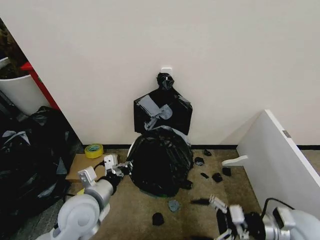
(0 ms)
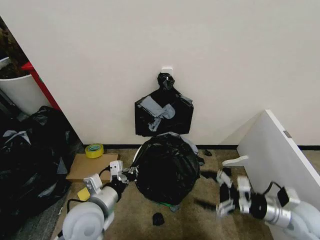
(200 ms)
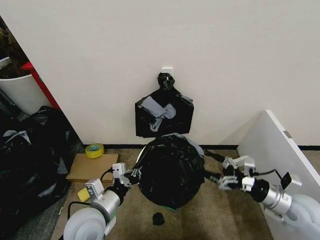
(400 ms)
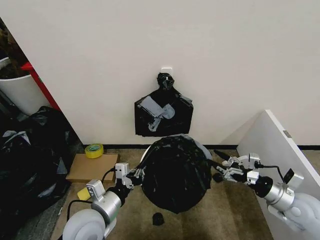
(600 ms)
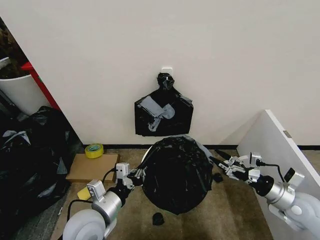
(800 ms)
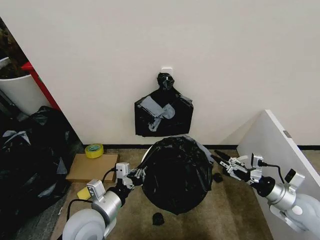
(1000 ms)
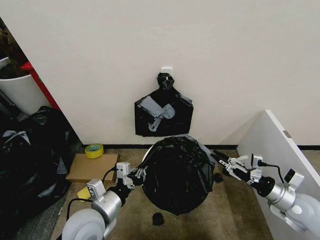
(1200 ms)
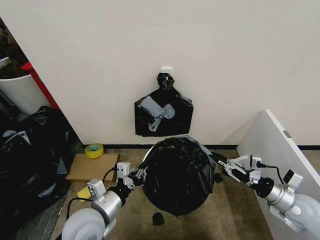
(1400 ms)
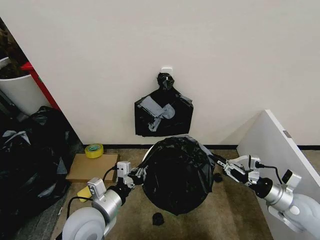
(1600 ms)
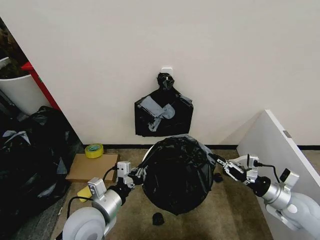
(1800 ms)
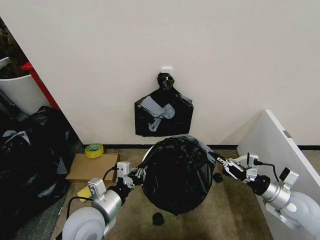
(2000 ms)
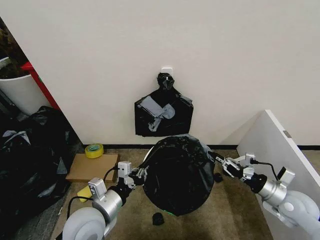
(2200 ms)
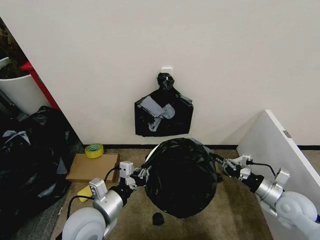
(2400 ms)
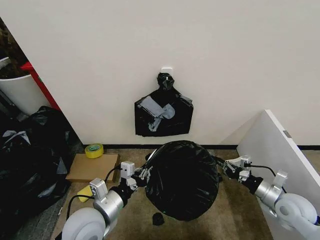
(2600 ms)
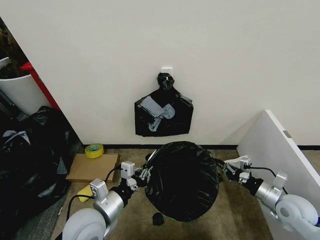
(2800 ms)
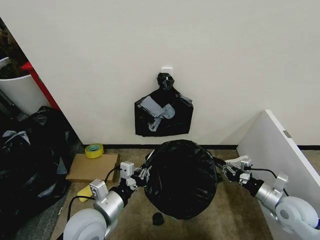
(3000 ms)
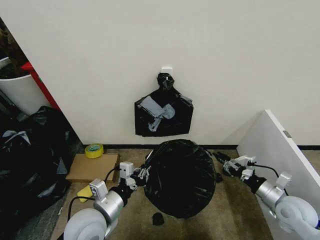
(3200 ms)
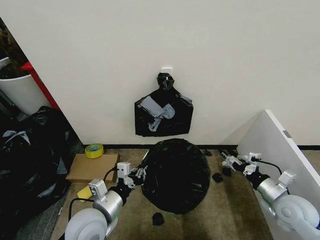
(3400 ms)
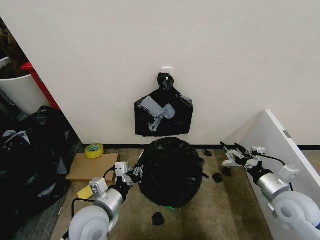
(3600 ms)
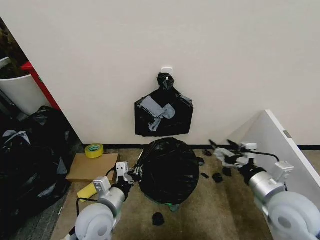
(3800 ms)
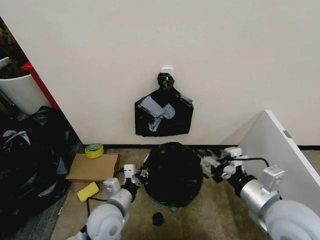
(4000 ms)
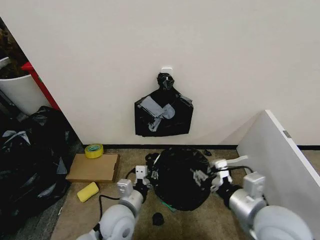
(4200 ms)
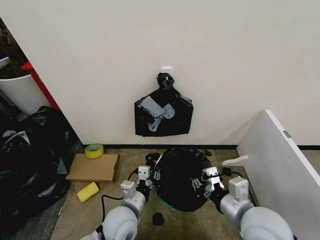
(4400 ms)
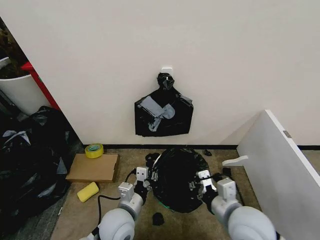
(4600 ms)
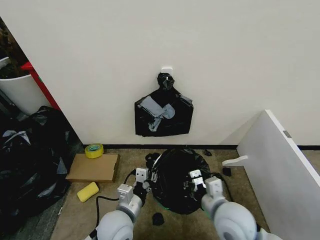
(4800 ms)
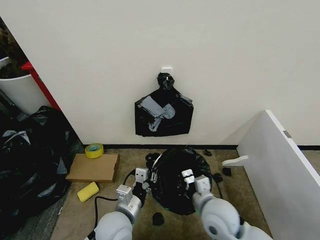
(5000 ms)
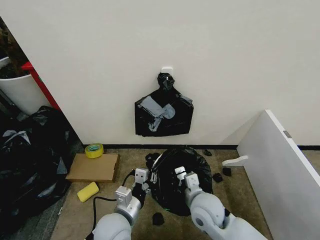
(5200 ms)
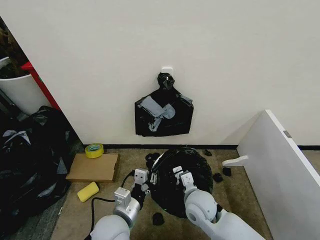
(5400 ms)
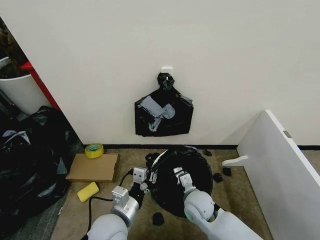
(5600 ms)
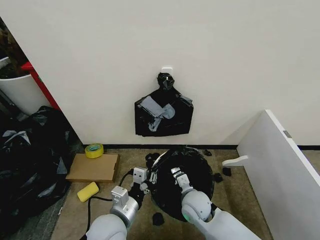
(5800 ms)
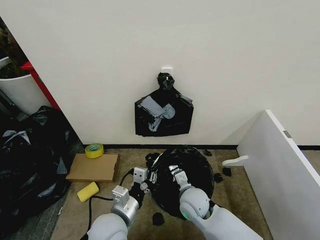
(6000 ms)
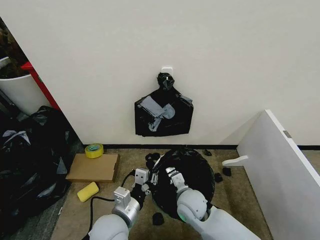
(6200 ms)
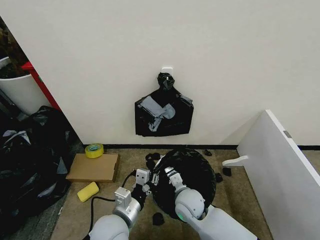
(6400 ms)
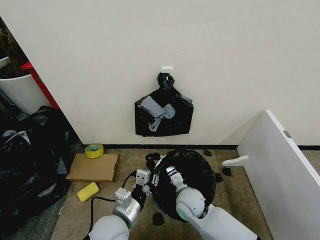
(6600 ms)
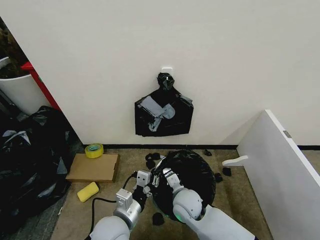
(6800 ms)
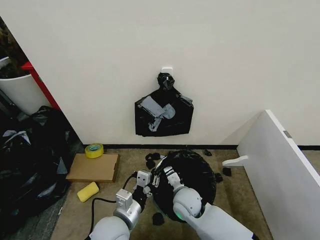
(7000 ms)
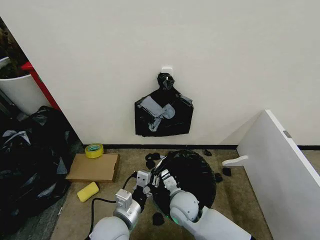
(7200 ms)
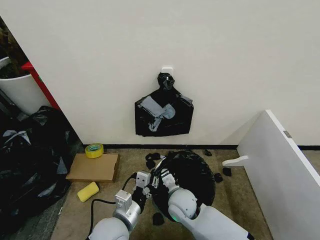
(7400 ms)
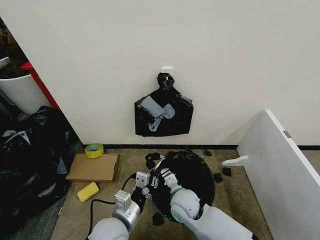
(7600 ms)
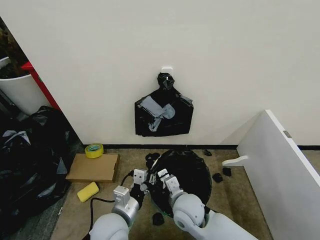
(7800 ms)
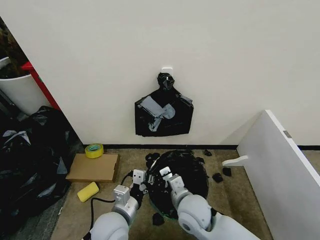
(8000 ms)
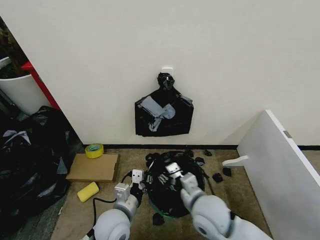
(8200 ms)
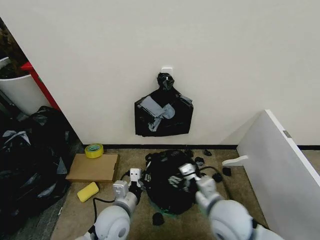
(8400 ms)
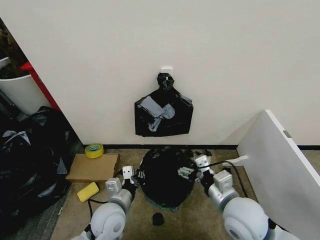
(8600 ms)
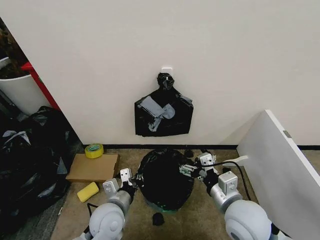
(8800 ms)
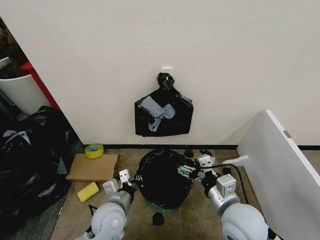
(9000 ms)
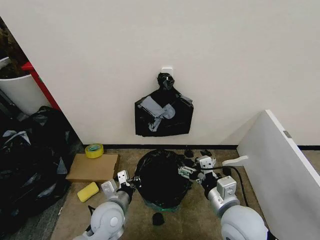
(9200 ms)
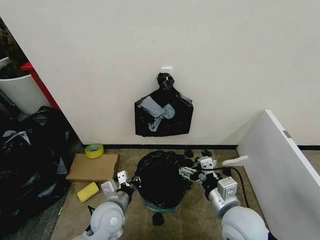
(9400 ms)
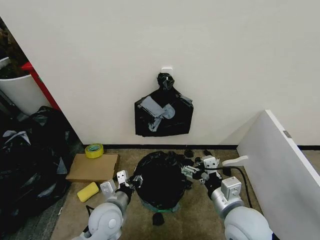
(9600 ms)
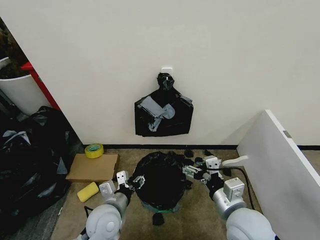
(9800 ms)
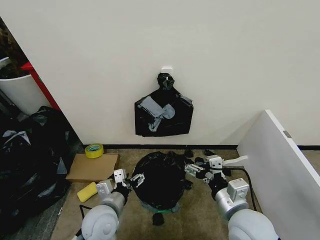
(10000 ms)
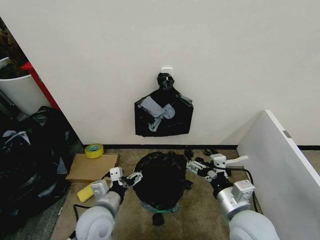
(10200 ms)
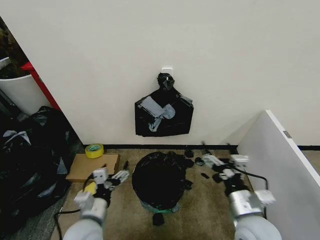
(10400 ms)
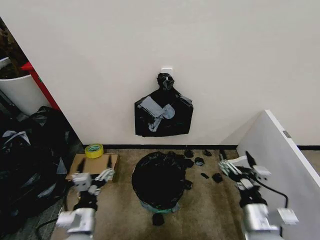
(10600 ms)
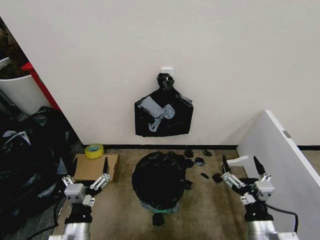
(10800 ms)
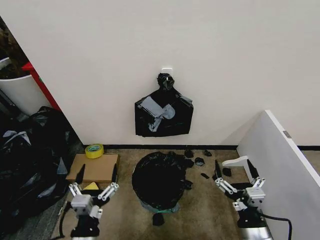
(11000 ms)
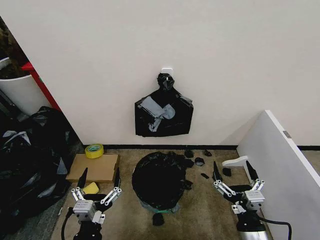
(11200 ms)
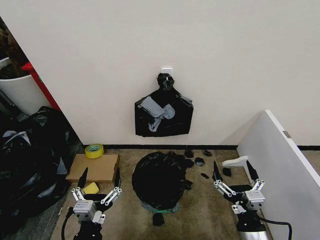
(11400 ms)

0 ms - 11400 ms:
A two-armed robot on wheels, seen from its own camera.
Task of the whole recording: Place the garbage bag over the trash bin.
0 ms - 1400 ms: The right gripper changes place by roughly 5 cm, and closes.
1400 ms - 2800 ms: The right gripper closes its fingers.
2800 ms - 4200 ms: The right gripper moves to the left, upward and backward, roughly 25 cm, and opens up; the left gripper travels downward and to the right by about 10 cm.
4200 ms - 5600 ms: The right gripper travels downward, to the left and forward by about 25 cm, and closes up.
5600 ms - 7200 ms: The right gripper moves to the left, about 5 cm.
7200 ms - 8600 ms: The left gripper moves roughly 5 cm. Meanwhile the right gripper is displaced to the right, upward and backward by approximately 20 cm, and opens.
8600 ms - 10000 ms: The left gripper opens its fingers.
10000 ms - 11400 ms: The left gripper goes about 15 cm backward. Meanwhile the right gripper moves backward and downward, roughly 10 cm.

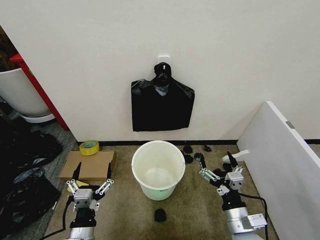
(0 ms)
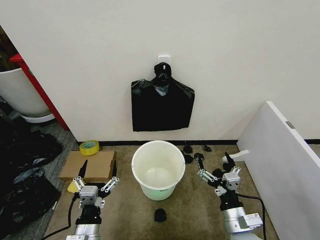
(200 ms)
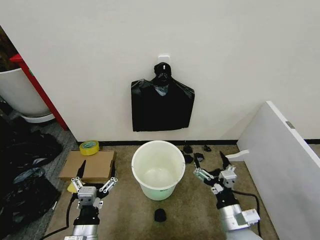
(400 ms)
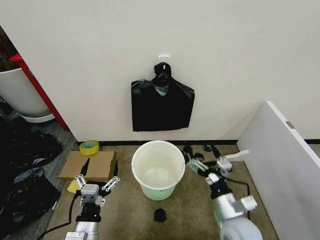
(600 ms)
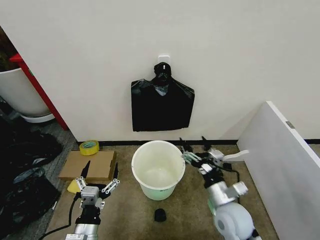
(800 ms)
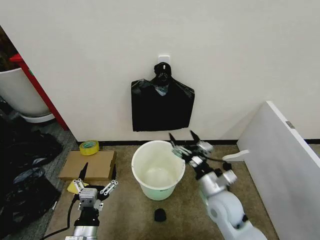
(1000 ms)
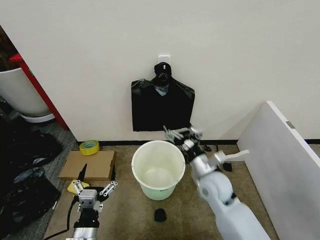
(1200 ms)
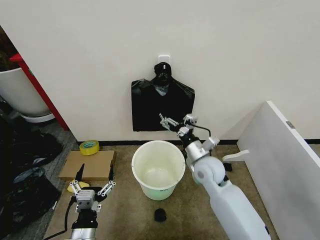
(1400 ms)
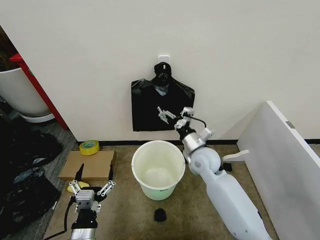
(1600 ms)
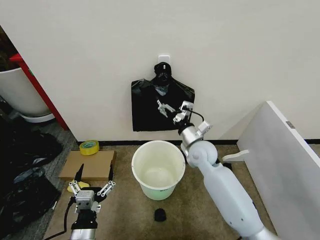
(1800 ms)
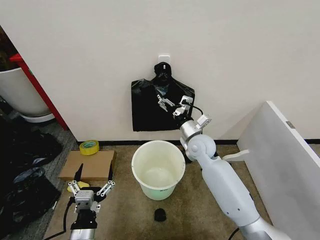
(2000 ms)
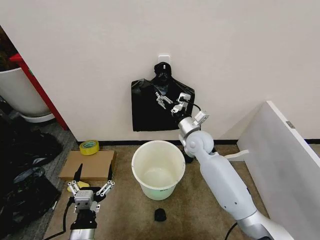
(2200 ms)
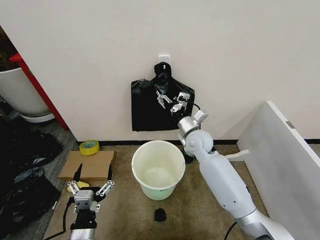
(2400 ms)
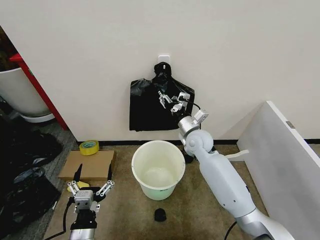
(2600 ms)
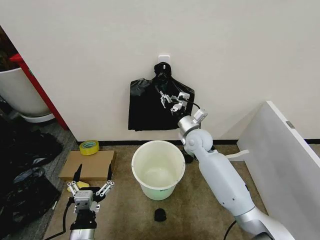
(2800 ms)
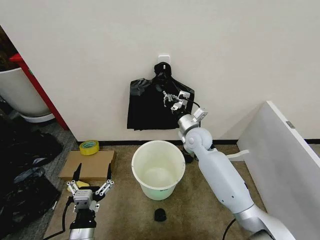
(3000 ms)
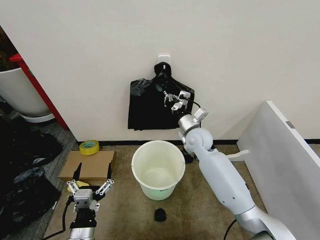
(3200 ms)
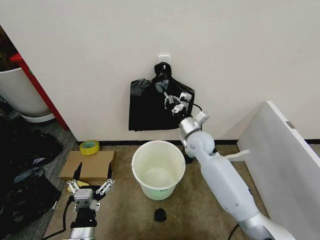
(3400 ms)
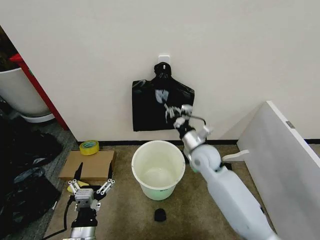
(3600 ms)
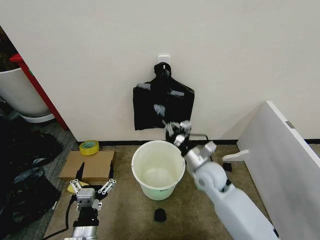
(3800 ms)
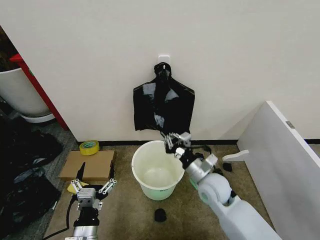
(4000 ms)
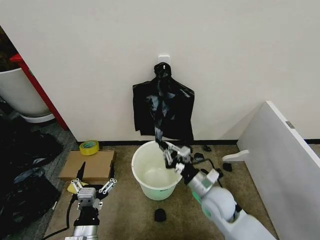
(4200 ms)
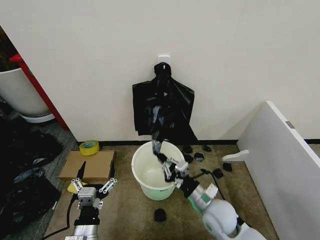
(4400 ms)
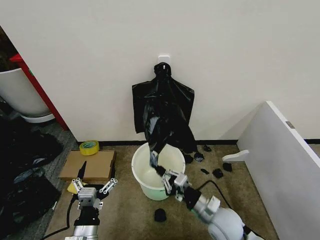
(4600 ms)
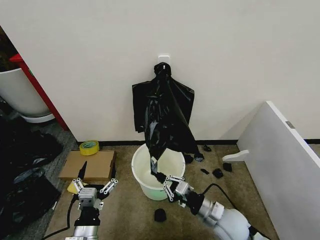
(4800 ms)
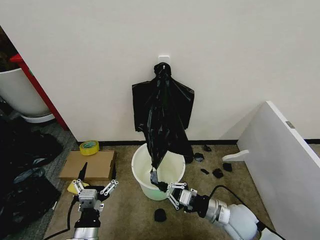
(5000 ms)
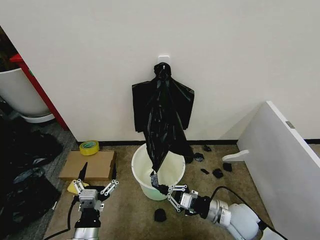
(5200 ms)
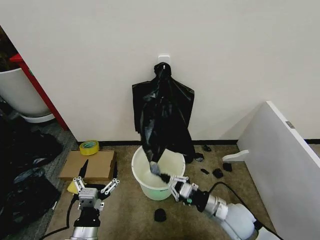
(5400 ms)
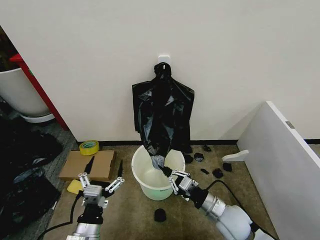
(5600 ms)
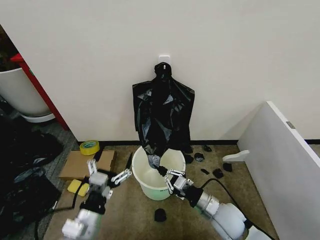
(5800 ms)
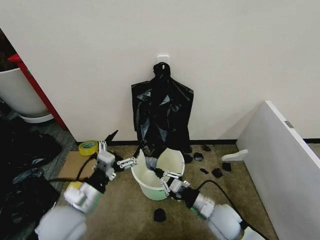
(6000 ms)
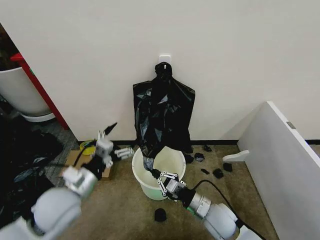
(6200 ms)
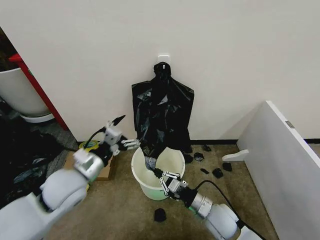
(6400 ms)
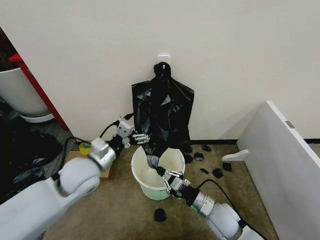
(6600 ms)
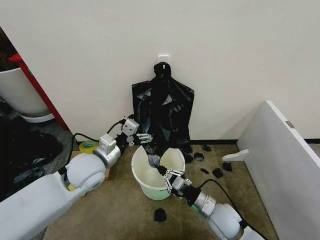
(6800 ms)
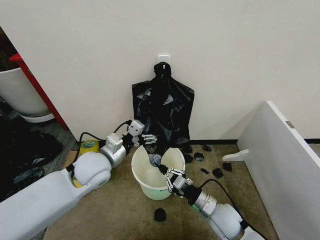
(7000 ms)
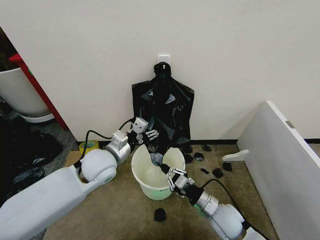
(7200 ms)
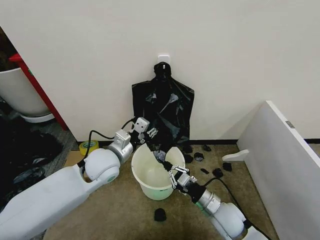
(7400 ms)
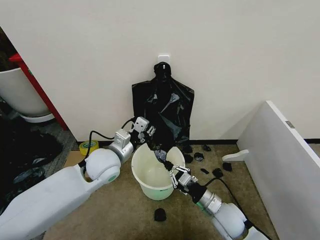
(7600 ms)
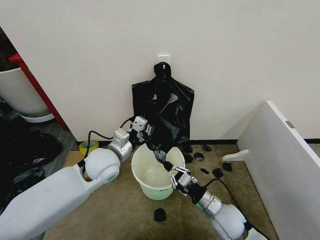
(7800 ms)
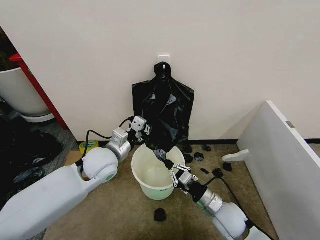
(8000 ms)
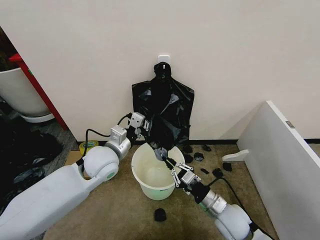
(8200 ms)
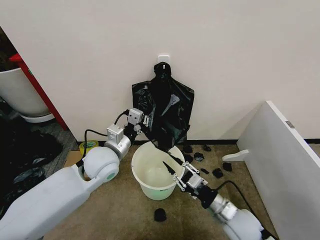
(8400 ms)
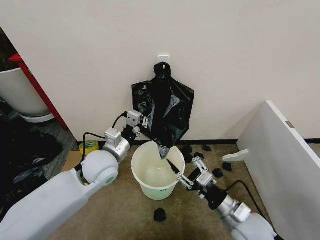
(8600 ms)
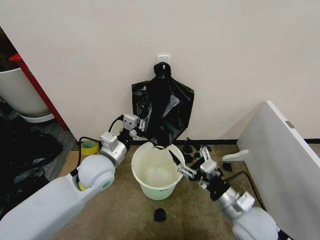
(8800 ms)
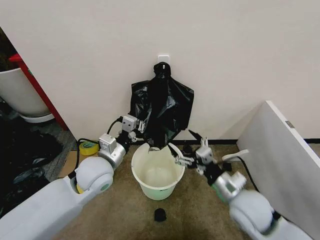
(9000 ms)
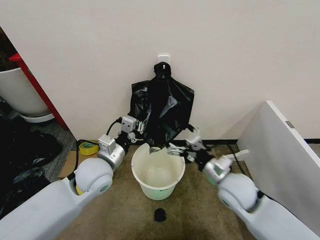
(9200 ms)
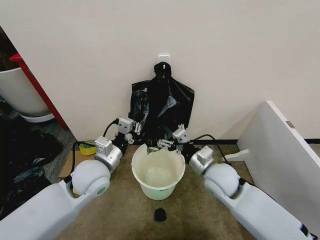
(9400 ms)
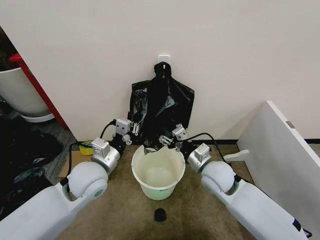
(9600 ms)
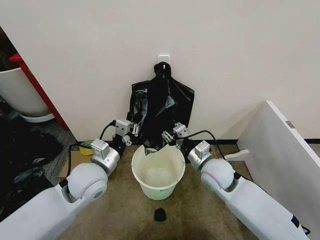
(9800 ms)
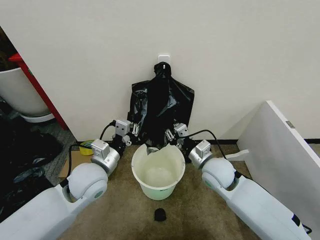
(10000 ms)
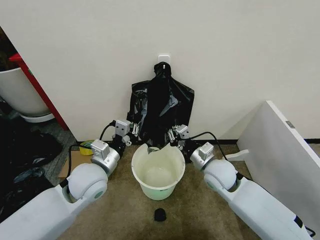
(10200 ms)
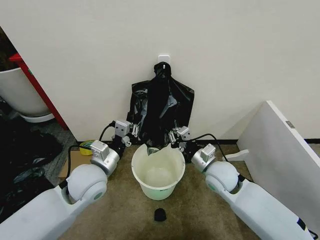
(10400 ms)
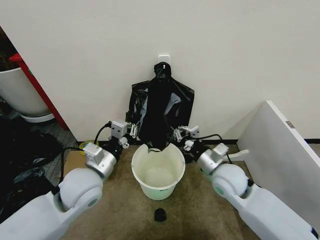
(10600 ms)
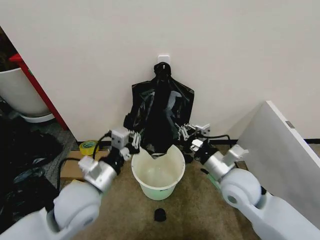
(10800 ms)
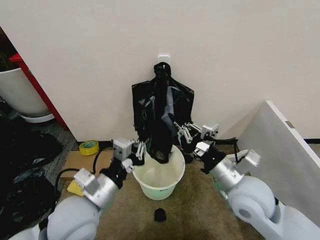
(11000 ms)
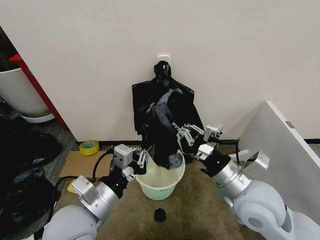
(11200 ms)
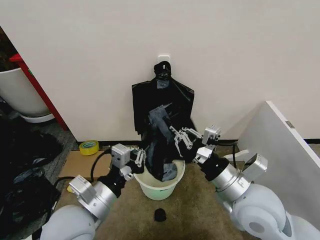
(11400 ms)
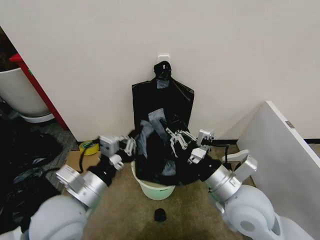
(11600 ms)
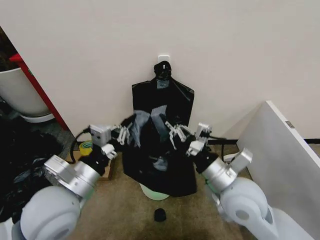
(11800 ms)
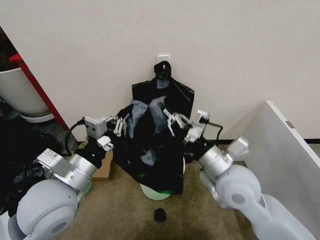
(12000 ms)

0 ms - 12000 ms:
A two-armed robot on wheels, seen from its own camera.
Task of the whole recording: Place the garbage bag over the trash bin.
1600 ms - 3000 ms: The right gripper heads forward, covering approximately 10 cm, and closes.
3000 ms - 4400 ms: The right gripper is displaced backward and downward by roughly 25 cm.
4400 ms - 6000 ms: The left gripper is displaced upward and forward by some 10 cm.
6000 ms - 7600 ms: The left gripper goes roughly 15 cm forward, and closes its fingers.
7600 ms - 9000 ms: The right gripper travels upward by some 10 cm, and opens up.
9000 ms - 10400 ms: The right gripper goes approximately 10 cm forward, and closes its fingers.
10400 ms - 12000 ms: The right gripper goes some 15 cm upward and backward, while the left gripper travels backward and upward by some 10 cm.
